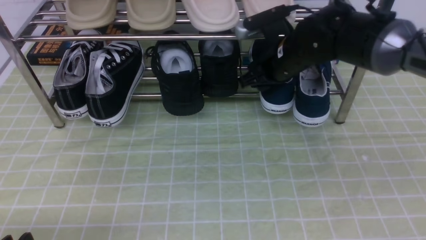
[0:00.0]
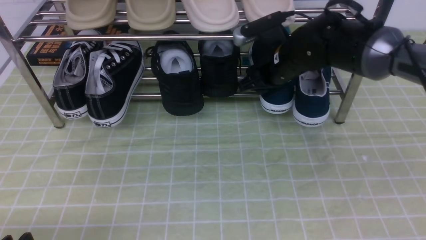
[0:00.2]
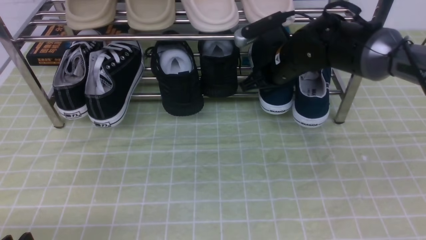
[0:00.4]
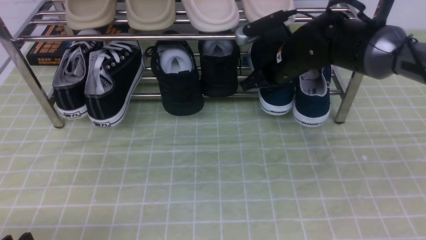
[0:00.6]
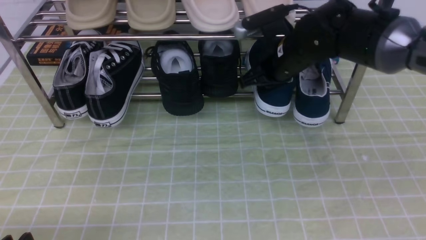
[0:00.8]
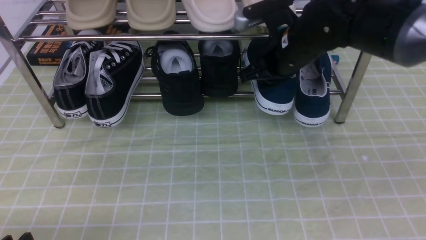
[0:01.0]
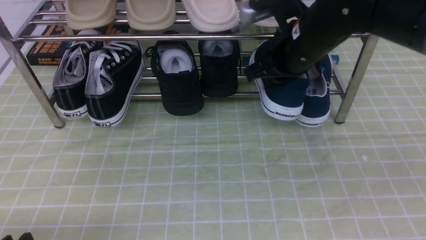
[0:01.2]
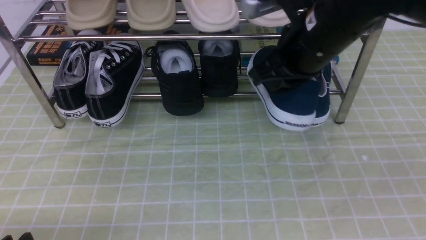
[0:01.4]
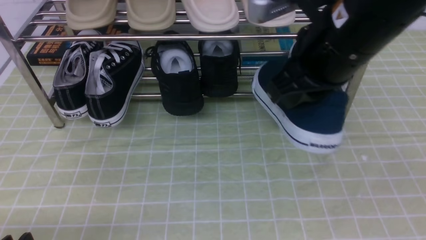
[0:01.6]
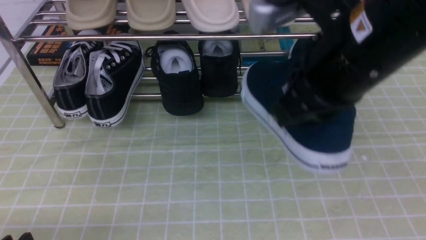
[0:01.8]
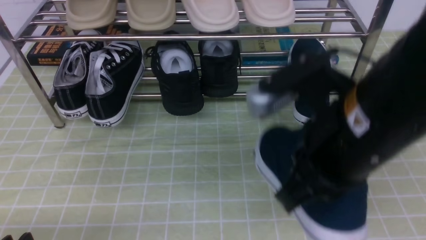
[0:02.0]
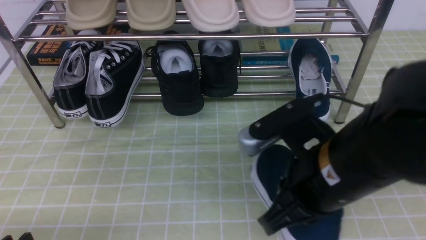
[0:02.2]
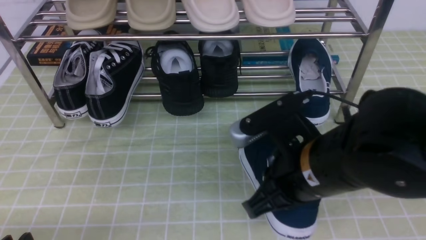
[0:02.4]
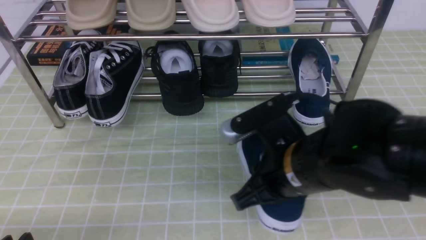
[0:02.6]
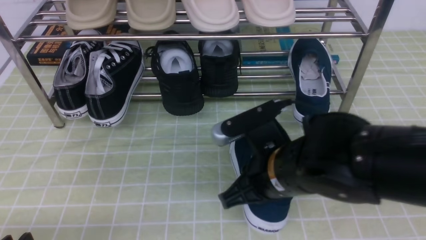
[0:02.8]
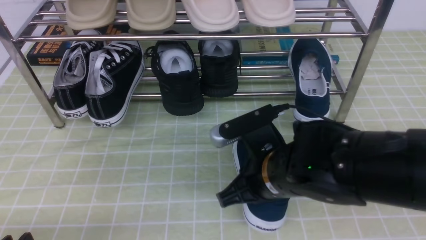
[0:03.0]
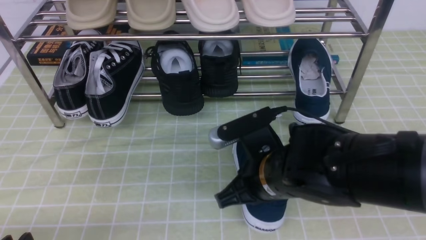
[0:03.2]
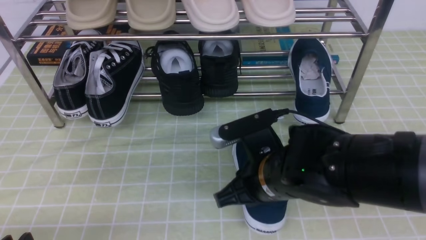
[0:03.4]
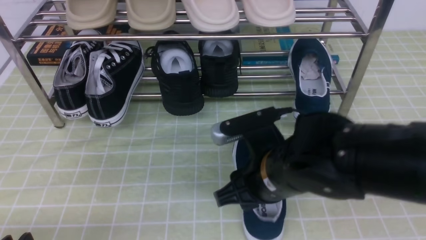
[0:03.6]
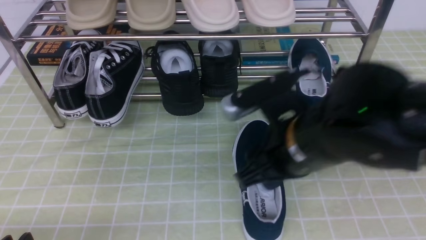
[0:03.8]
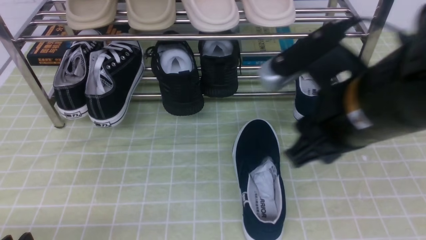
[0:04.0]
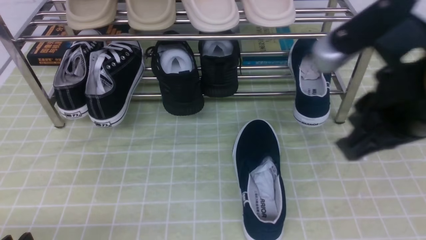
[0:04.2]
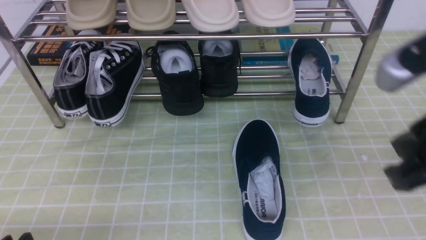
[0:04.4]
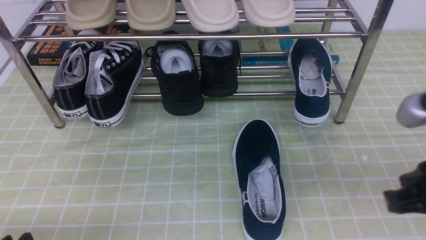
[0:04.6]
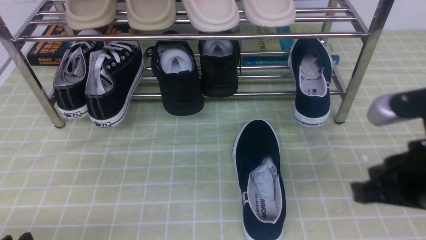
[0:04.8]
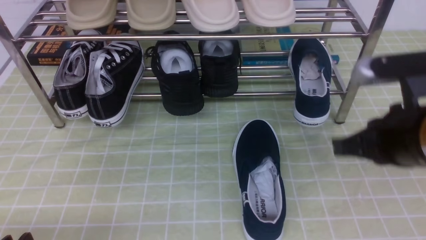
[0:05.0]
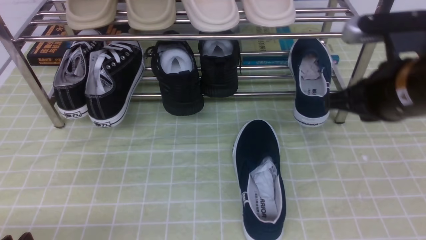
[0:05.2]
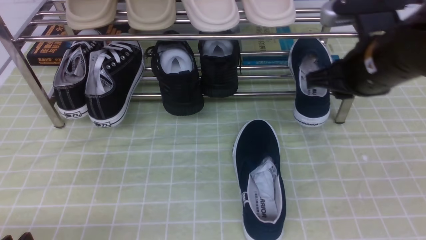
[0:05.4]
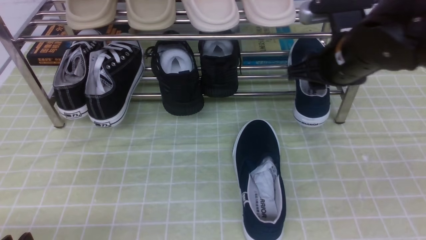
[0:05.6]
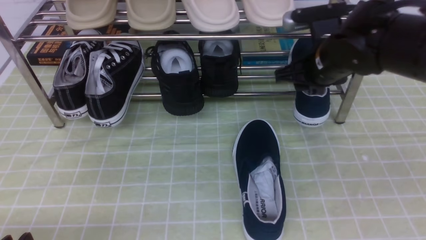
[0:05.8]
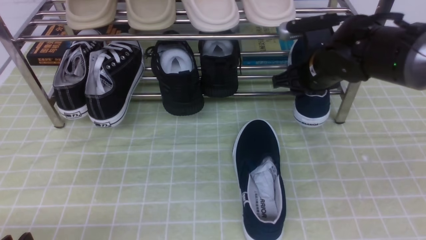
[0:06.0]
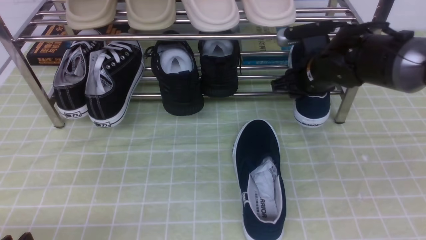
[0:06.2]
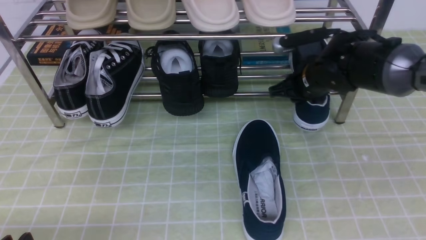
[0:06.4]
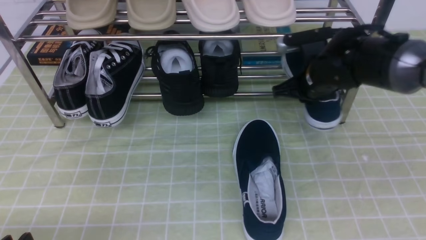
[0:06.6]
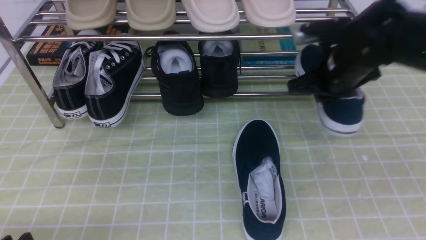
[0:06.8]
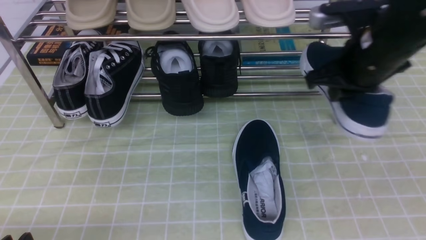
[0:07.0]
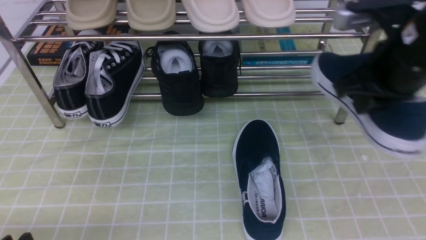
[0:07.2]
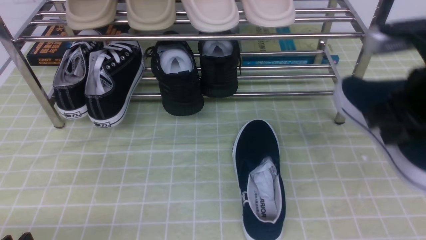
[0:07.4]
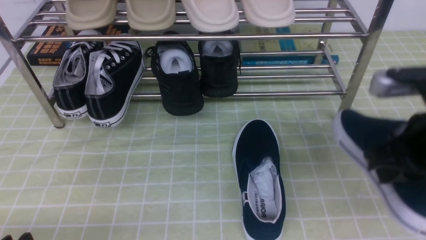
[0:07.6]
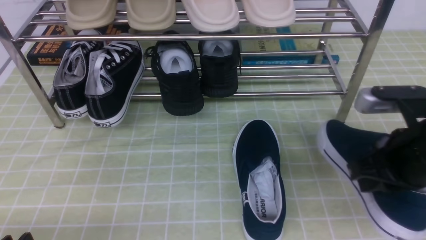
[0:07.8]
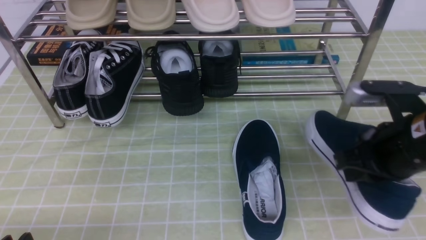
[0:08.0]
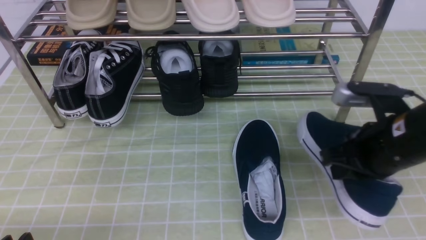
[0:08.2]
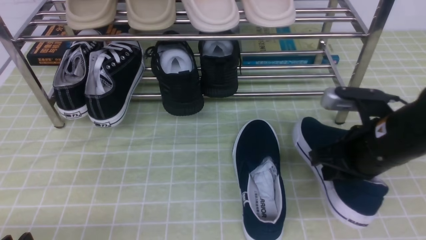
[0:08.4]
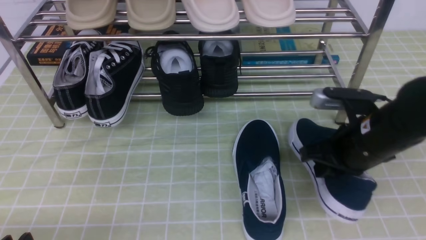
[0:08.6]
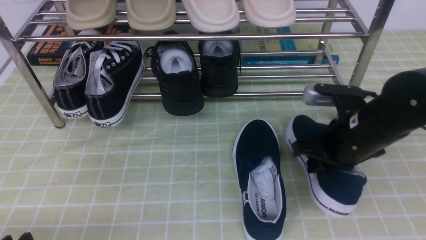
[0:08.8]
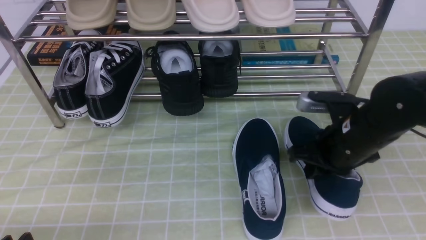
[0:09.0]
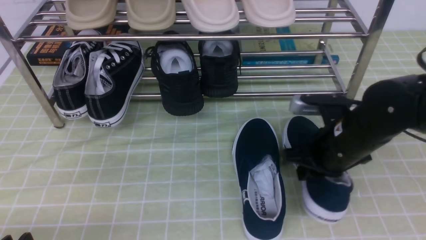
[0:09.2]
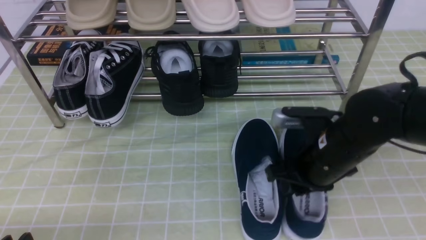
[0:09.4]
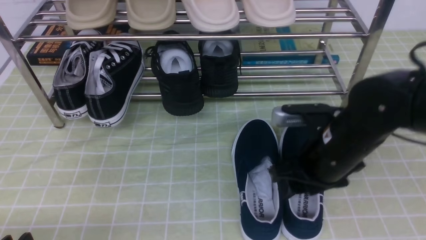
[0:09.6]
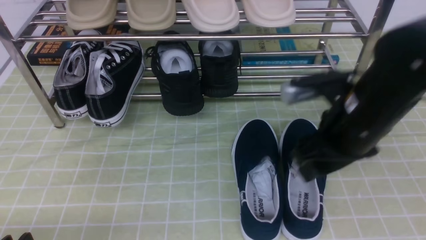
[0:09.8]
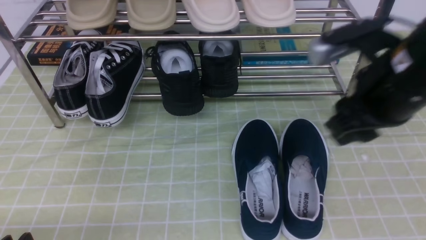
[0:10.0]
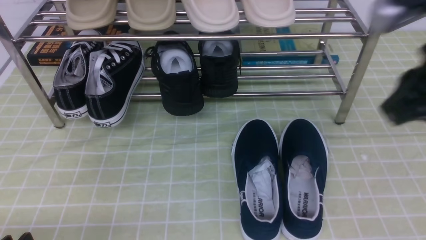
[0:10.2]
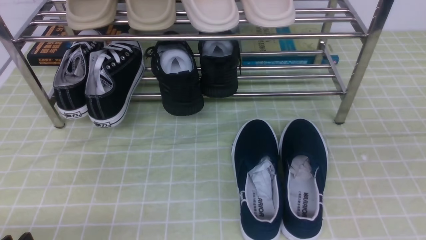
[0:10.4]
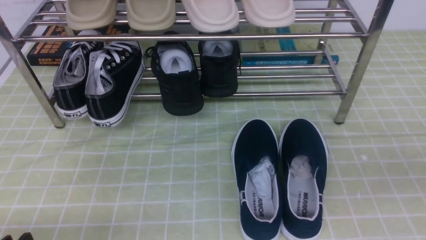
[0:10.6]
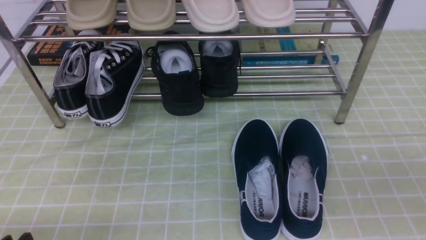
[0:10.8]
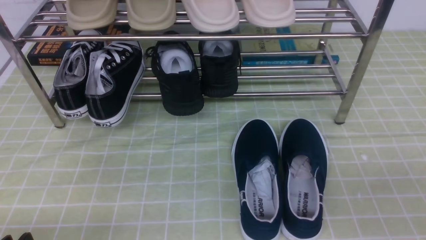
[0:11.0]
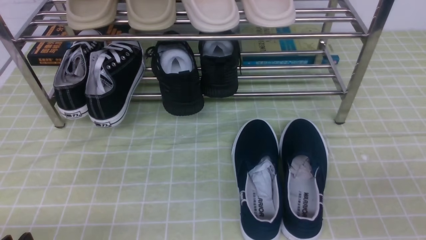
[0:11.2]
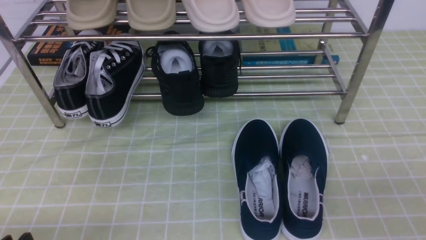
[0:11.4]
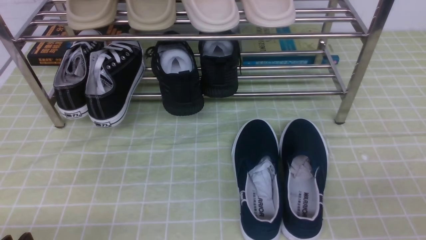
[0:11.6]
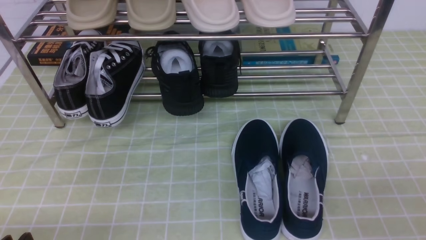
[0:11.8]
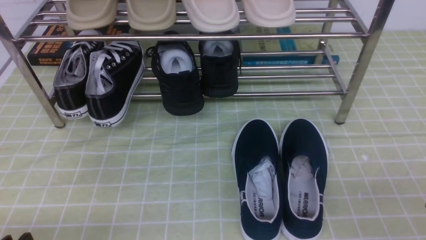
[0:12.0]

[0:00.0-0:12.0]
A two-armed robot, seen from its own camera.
Step, 0.6 to 3.8 s: use the right arm to take out the clamped shoe from the shoe rack and put it down.
Step, 4.0 to 6.6 s: use the right arm to clamp a shoe on the right side of the shoe rack.
Step, 6.8 to 9.6 s: use the right arm to take out the clamped shoe from the shoe rack and put it down.
0.0 to 1.6 s: The right gripper goes approximately 20 cm backward and upward, and closes up.
1.6 to 3.0 s: The right gripper moves downward, approximately 15 cm.
3.0 to 4.4 s: The right gripper heads upward, to the right and backward, covering about 20 cm, and opens, then closes once more.
4.4 to 6.0 s: The right gripper goes approximately 25 cm forward and downward, and opens its fingers.
6.0 to 7.6 s: The right gripper heads backward, covering some 20 cm, and closes its fingers.
7.6 to 9.0 s: The right gripper travels downward and forward by approximately 10 cm.
9.0 to 10.4 s: The right gripper moves upward, backward and to the right, some 25 cm, and opens, then closes again.
10.4 to 12.0 s: The right gripper is displaced downward by some 15 cm.

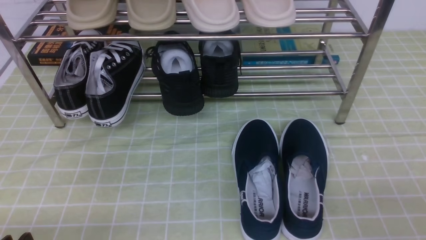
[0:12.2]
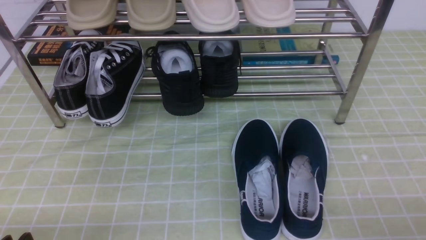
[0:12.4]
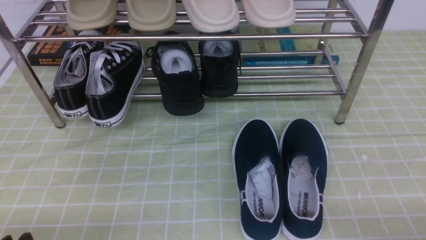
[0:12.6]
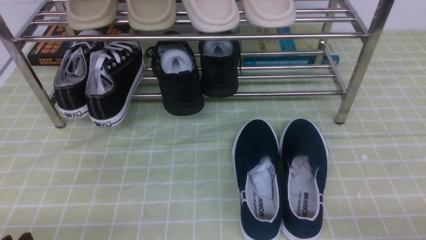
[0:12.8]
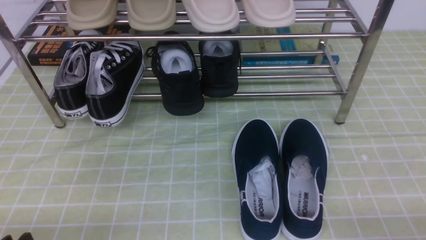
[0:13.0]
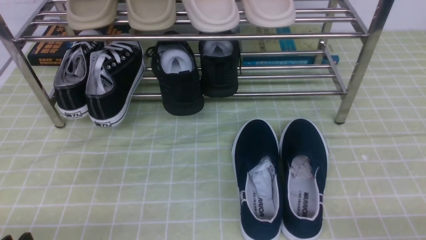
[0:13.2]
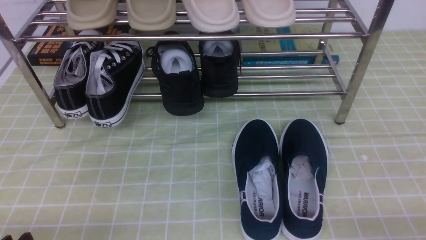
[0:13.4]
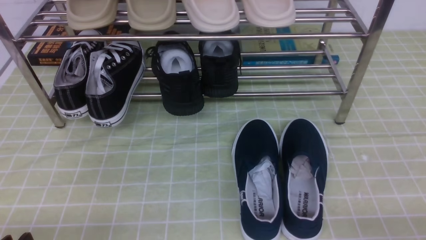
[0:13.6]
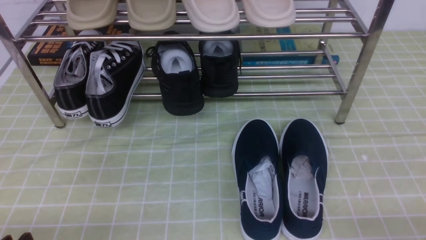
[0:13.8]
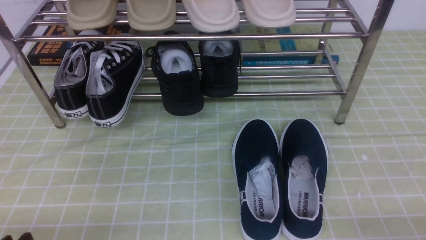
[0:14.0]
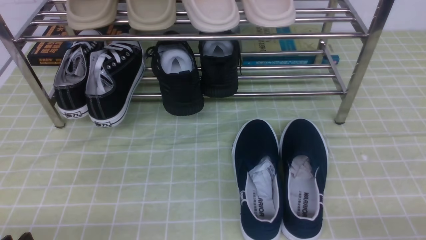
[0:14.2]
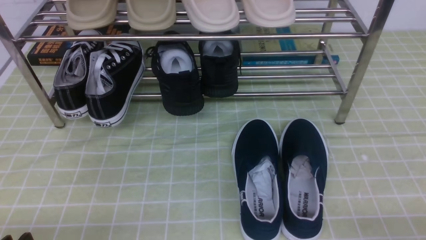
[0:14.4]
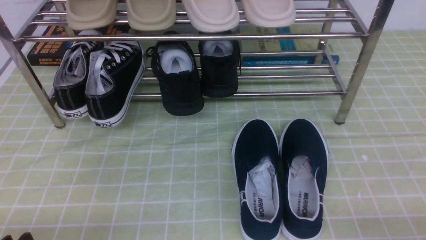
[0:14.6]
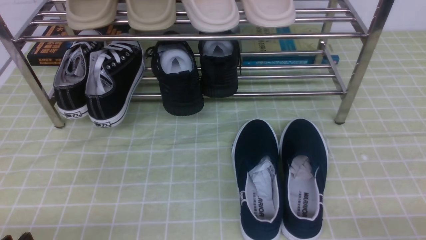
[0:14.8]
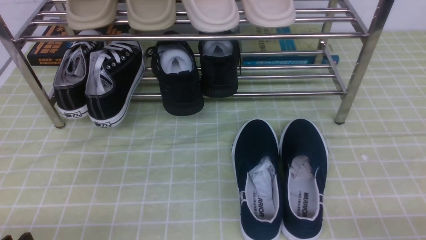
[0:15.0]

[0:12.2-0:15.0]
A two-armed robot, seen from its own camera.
13.6 to 15.0 s: Neither gripper changes place.

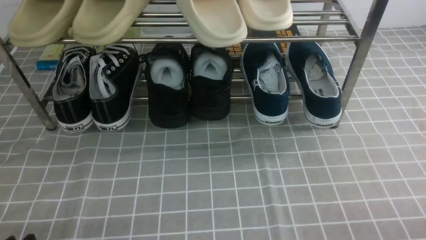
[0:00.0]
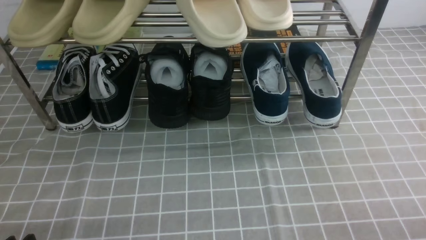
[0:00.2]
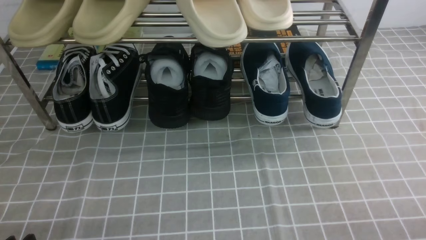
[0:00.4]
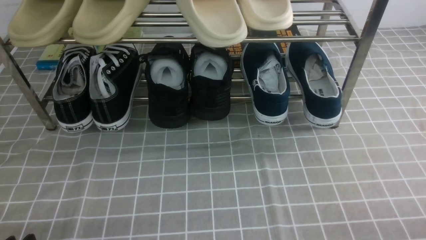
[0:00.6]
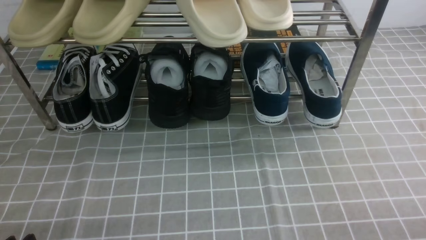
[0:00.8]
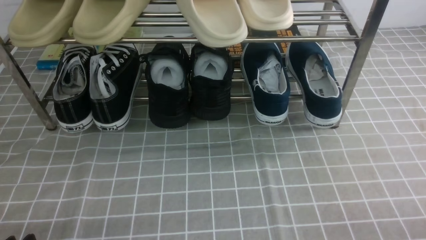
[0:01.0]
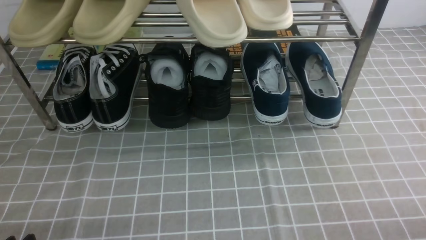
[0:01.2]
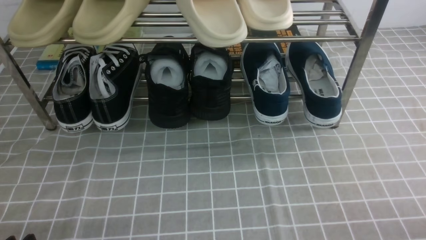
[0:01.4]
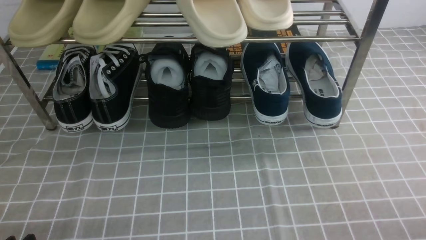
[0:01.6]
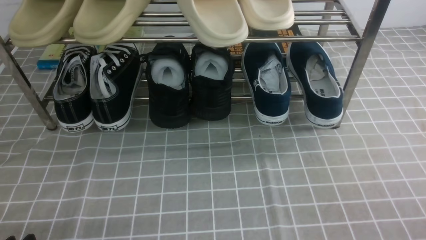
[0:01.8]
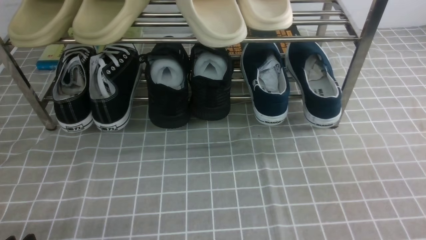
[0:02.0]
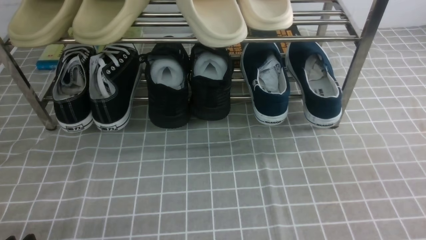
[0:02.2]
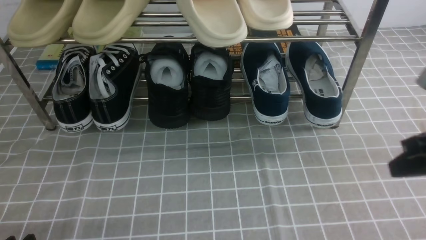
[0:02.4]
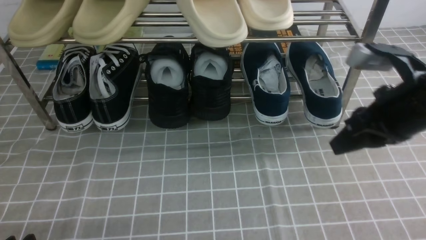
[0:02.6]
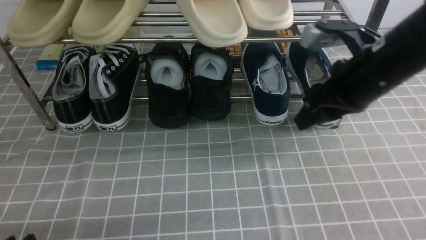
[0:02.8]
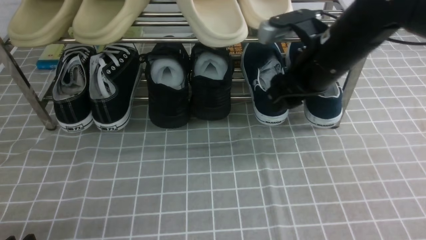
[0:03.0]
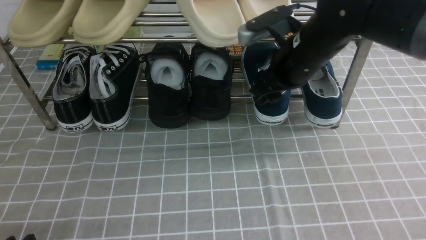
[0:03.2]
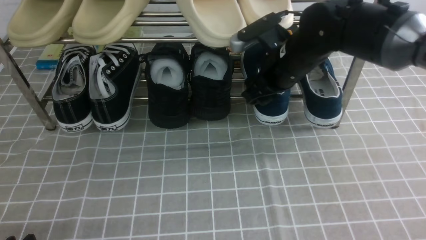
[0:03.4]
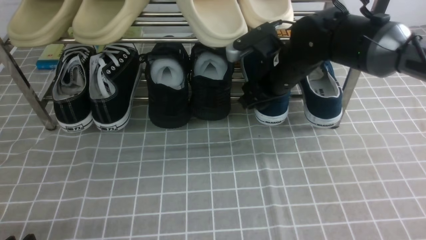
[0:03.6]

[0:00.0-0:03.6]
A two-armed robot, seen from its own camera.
0.0 to 1.8 s: The right gripper shifts some 5 cm upward.
1.8 to 3.6 s: The right gripper goes some 40 cm forward and to the left, and opens its fingers.
